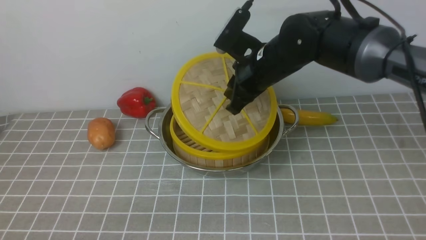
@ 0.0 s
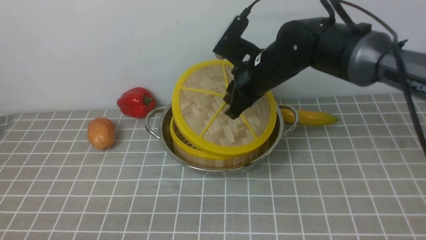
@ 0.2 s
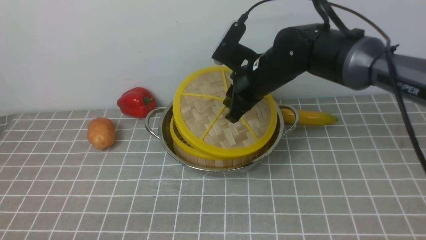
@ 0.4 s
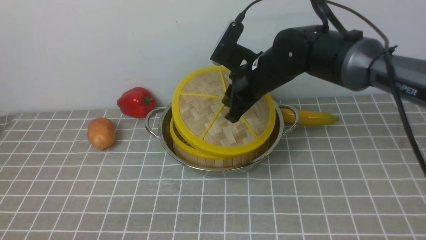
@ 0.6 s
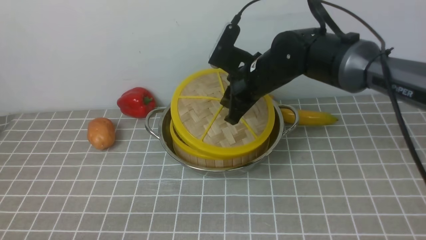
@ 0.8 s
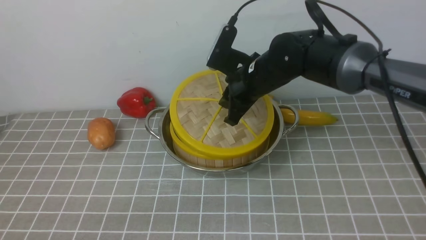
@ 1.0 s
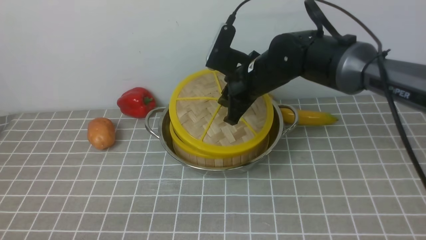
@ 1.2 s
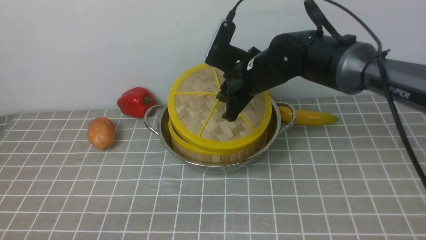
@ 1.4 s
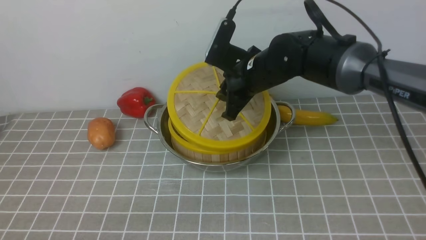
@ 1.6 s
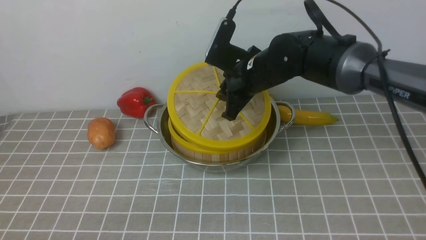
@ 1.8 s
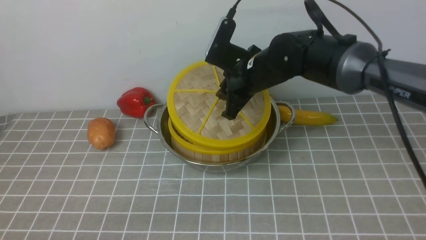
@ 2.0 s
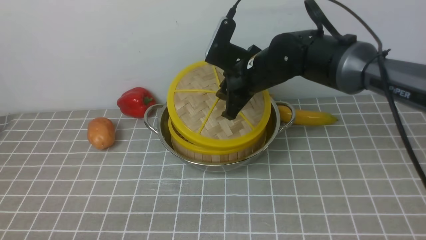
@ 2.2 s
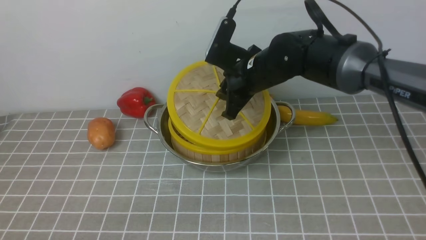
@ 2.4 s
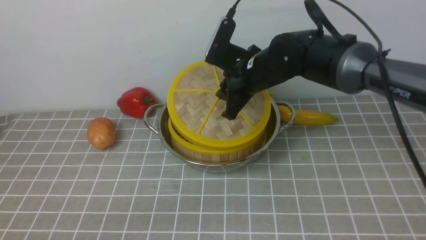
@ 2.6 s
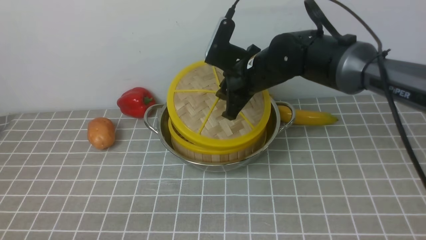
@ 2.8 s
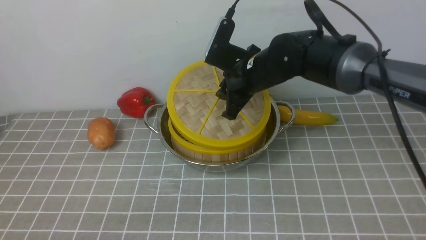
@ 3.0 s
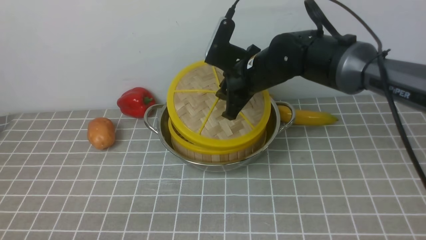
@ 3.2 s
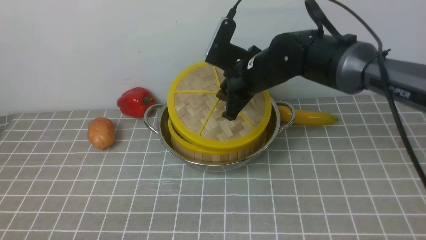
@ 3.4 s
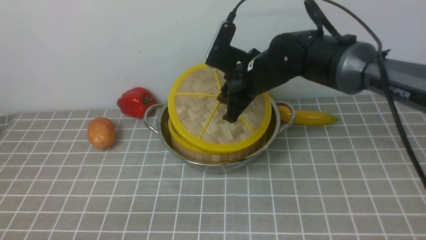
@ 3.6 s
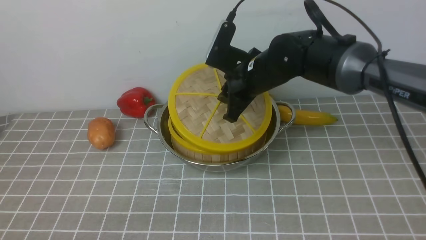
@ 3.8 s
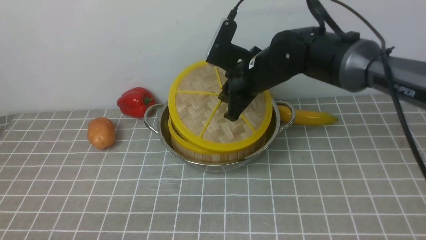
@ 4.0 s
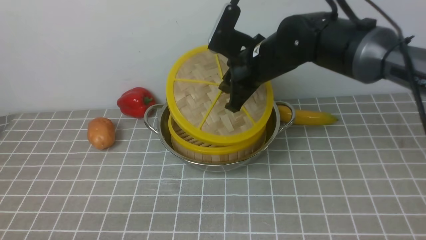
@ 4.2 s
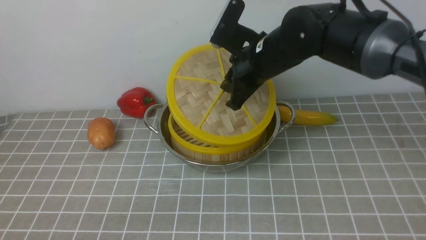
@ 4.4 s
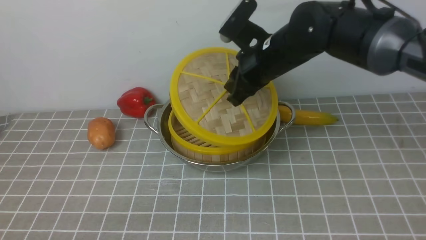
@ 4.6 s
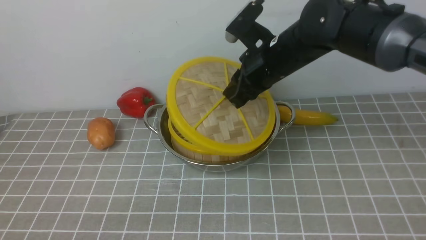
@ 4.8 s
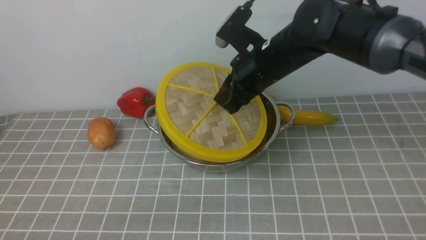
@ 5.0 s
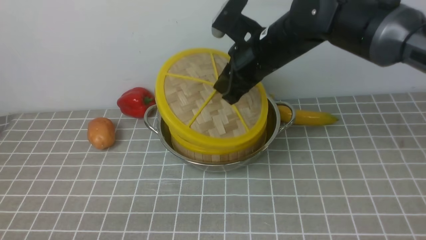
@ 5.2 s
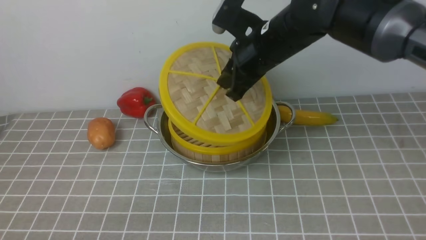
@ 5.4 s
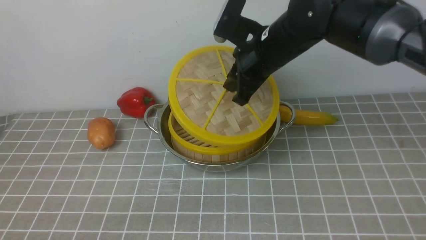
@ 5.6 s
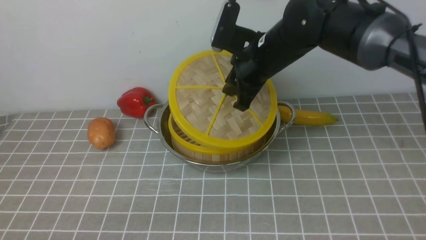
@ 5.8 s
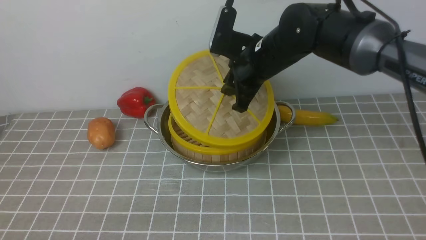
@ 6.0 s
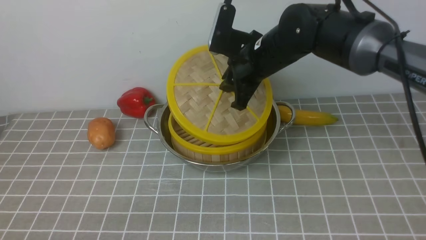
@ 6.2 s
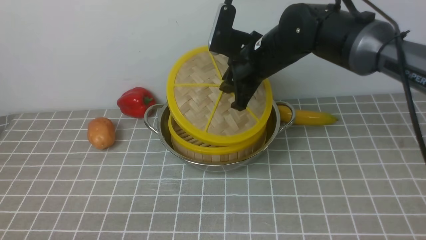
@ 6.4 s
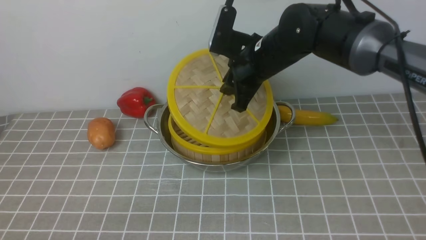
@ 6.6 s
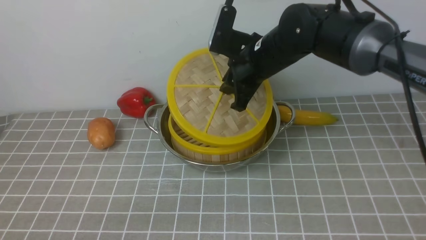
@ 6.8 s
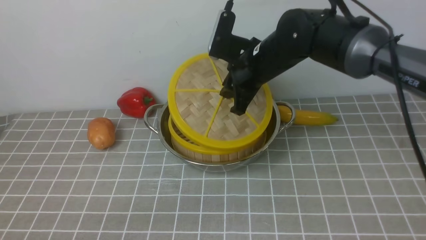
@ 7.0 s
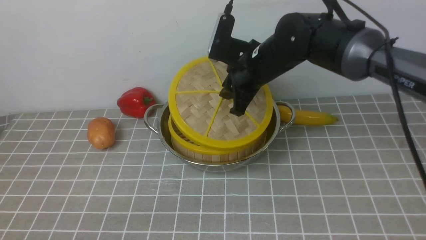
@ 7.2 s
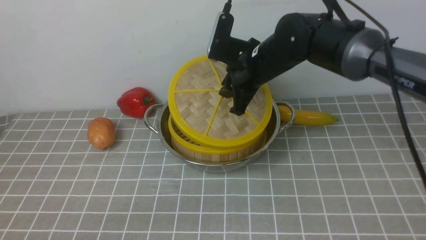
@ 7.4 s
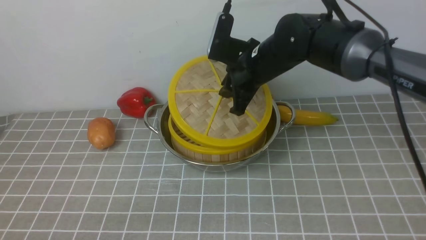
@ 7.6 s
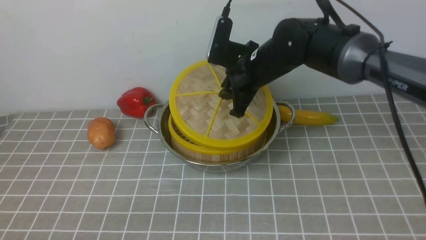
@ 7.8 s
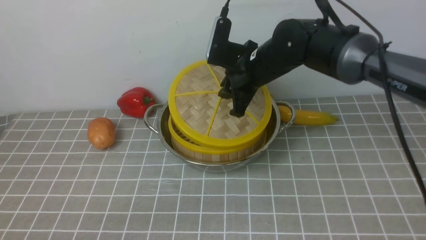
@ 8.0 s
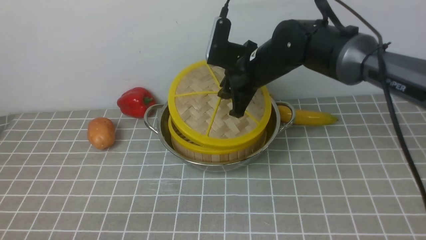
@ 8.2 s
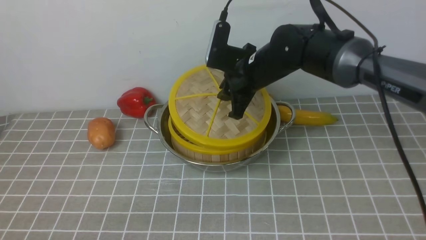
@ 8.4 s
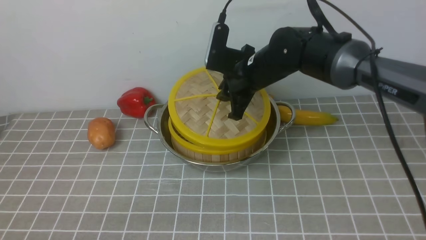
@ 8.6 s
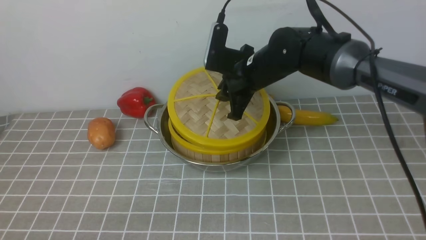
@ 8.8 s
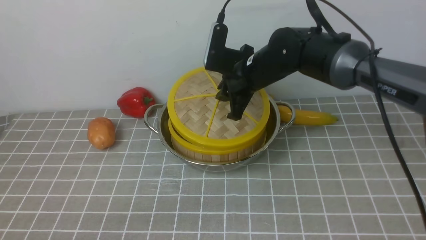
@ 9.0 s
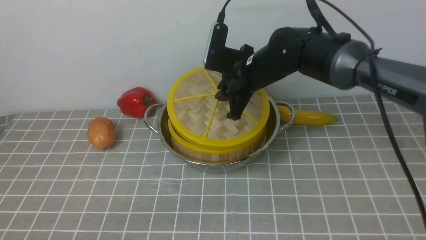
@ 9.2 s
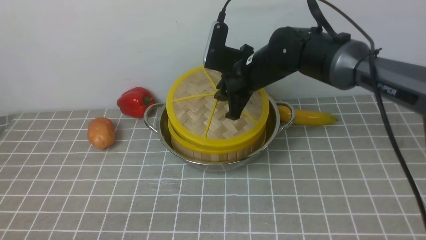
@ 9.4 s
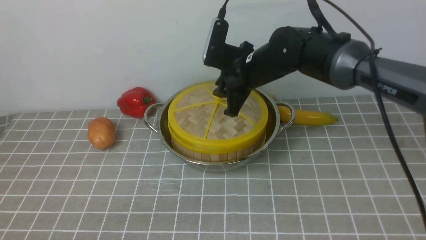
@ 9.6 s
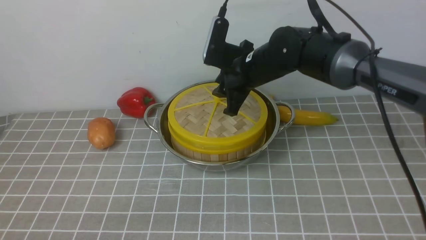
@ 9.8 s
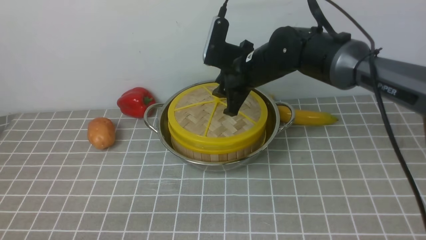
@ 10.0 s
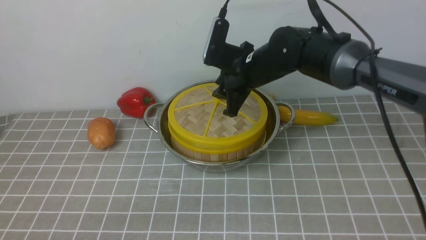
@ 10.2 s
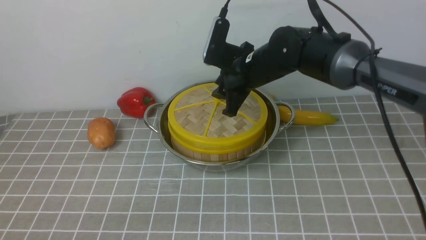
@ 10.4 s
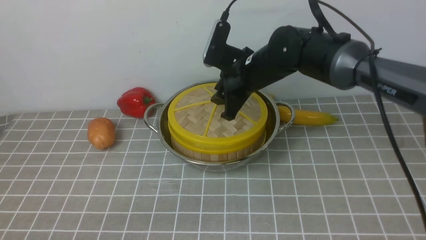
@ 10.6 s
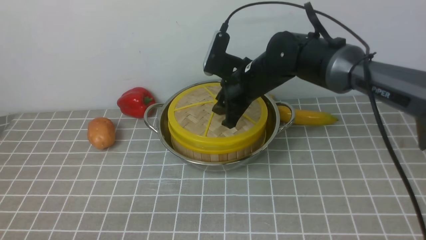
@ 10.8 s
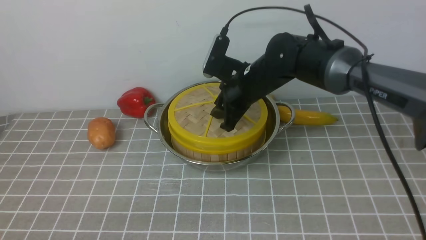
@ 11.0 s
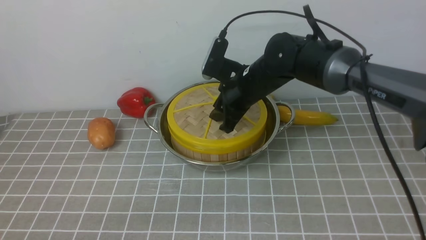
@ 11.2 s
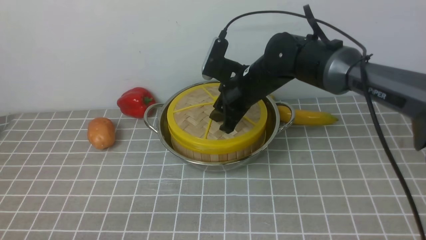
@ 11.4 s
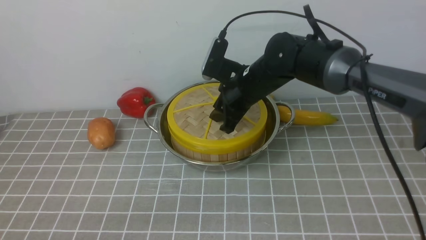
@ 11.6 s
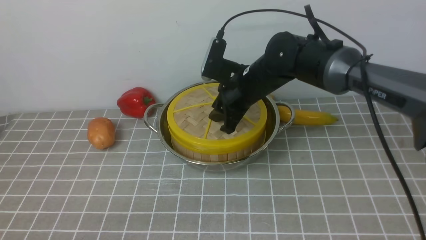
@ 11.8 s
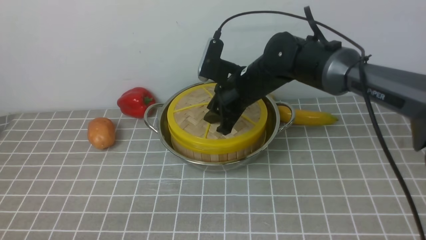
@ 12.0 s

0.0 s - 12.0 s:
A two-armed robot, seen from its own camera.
Task of the whole recording: place the steamer in the pot on the grey tablecloth, and put the lid on the steamer.
0.0 s - 1.6 s: The grippers make only small movements.
1.6 s - 3.0 s: Neither gripper changes place.
3.0 s - 4.4 s: There are only small adjustments of the grippers.
4.4 s - 9.0 s: There are only small adjustments of the grippers.
9.0 s - 10.4 s: Both grippers stay put.
10.4 s - 12.0 s: The grippers stay close to where they were, moving slightly.

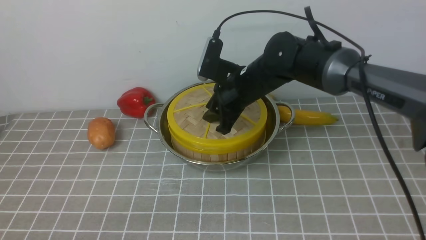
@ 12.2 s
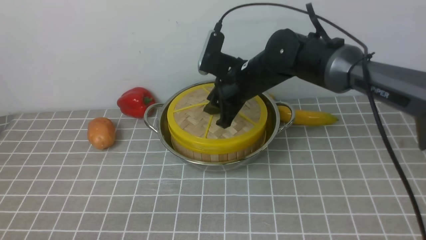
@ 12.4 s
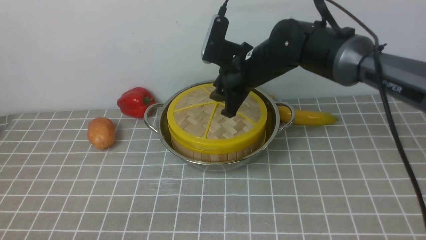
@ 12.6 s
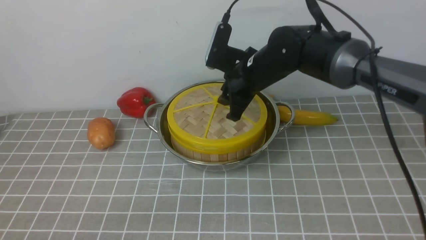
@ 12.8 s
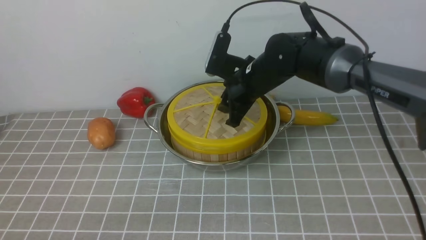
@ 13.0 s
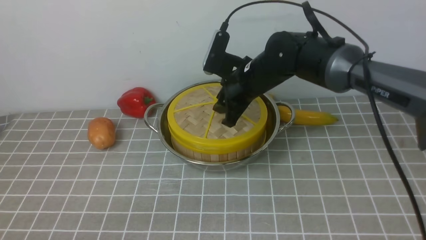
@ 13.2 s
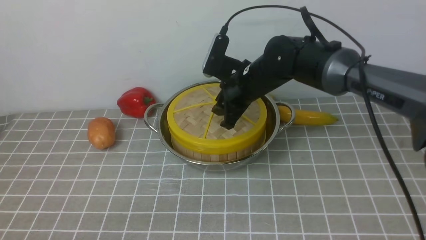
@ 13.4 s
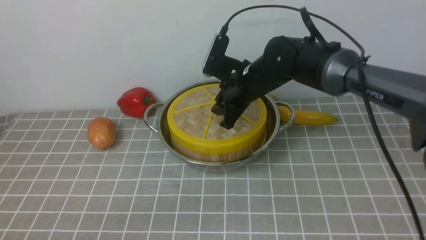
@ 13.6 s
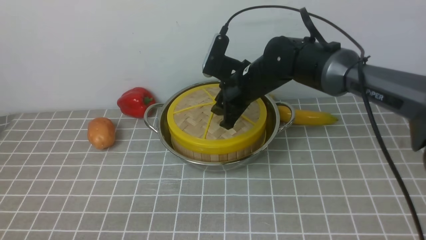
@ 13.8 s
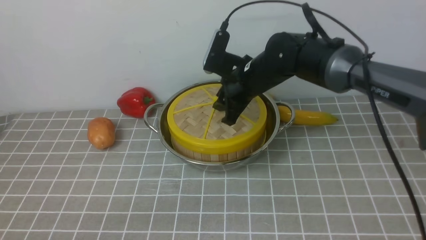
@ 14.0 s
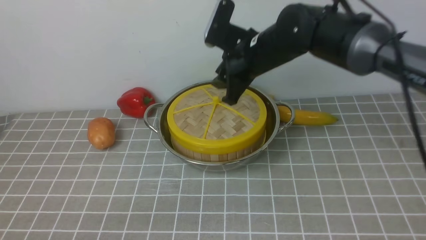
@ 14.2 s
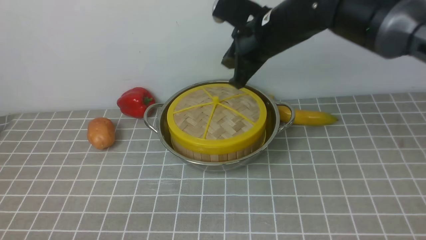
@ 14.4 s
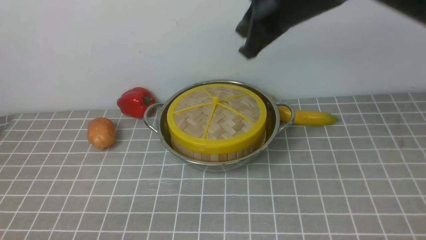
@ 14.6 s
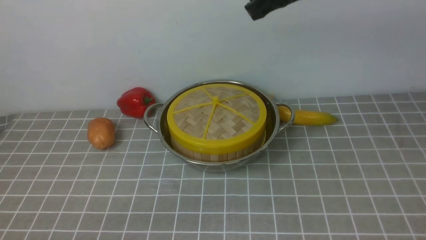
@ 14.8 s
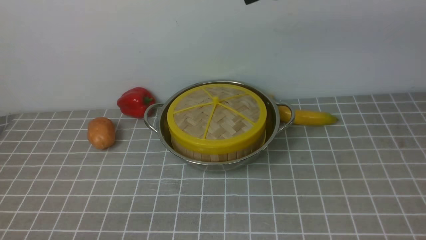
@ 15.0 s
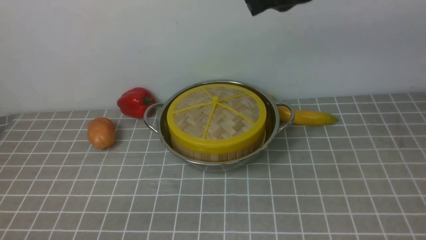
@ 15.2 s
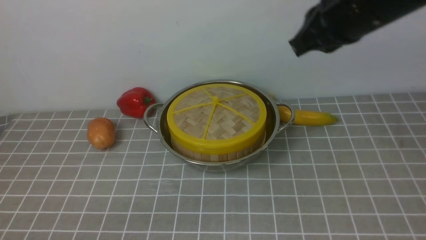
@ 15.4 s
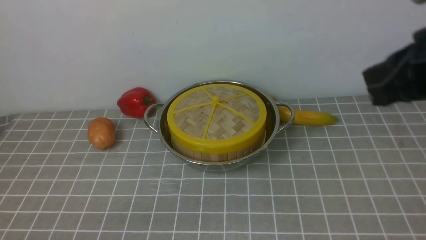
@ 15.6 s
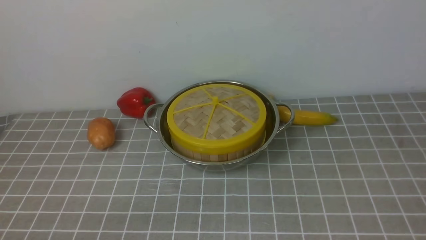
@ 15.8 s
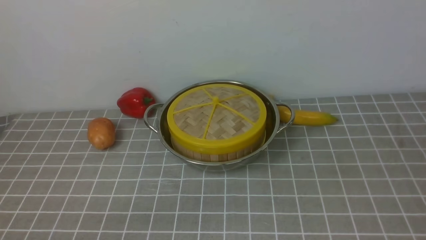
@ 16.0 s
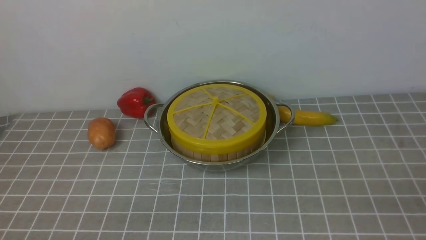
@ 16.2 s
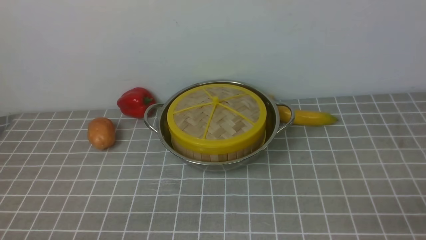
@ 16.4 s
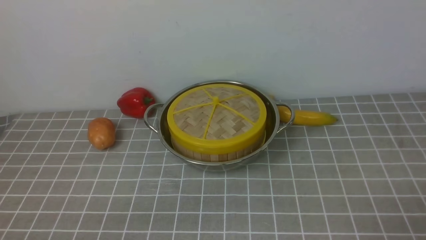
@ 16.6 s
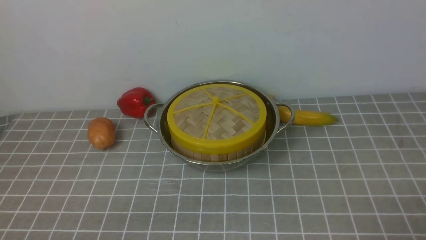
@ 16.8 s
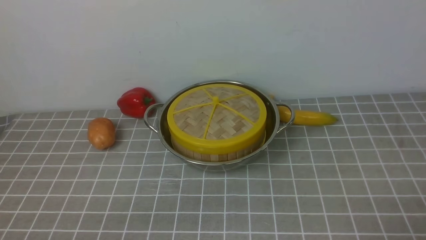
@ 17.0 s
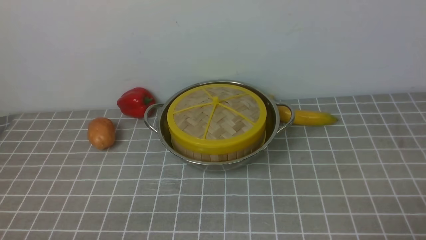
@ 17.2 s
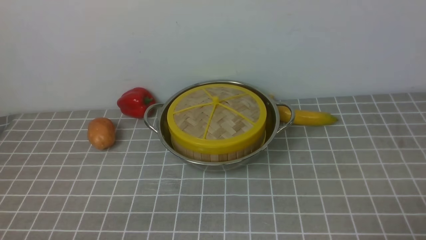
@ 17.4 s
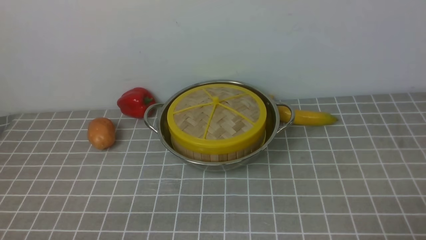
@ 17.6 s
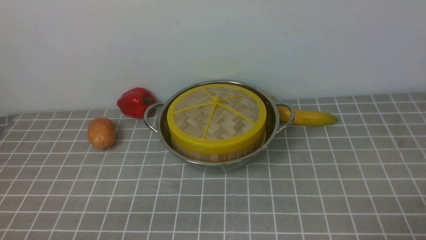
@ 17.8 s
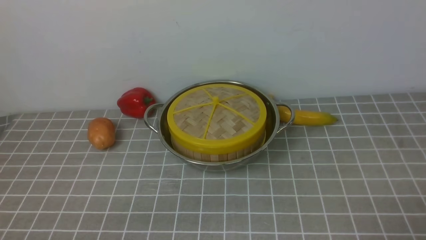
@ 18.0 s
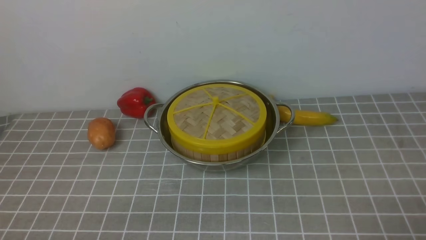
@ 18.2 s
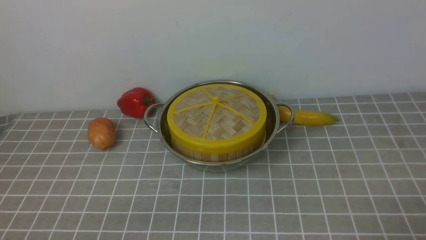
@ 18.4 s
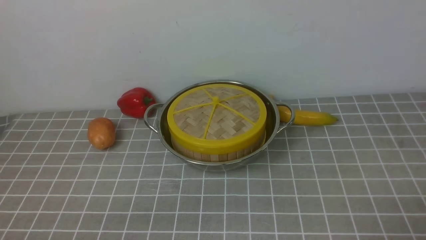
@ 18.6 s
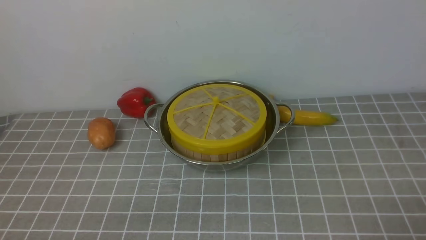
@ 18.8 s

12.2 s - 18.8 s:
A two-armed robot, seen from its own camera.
Task of the whole recording: place the steamer in the pot on the grey tablecloth, and put the lid on the steamer.
Step, 12.2 s - 14.2 s: use the right arm to place the steamer lid on the steamer.
12.2 s - 13.8 s: The grippers stay close to where they were, moving slightly.
13.8 s - 15.4 s: The right gripper goes some 25 cm upward, backward and to the right, and closes its fingers.
15.4 s - 17.2 s: The right gripper heads backward, downward and to the right, covering about 35 cm, and opens.
17.2 s - 18.8 s: Both grippers stay put.
